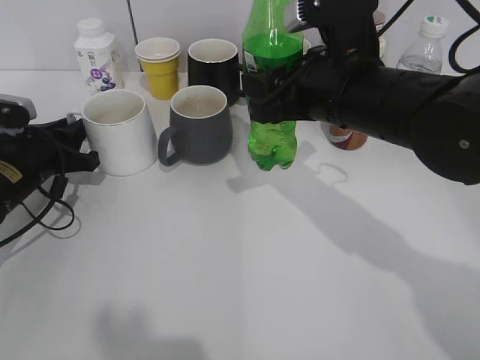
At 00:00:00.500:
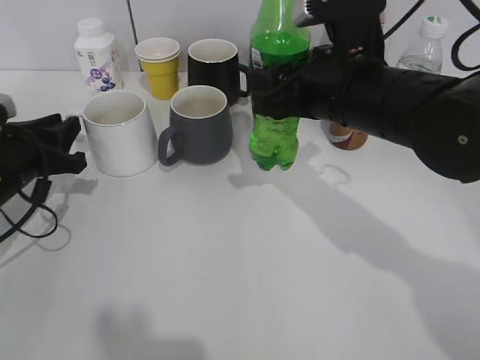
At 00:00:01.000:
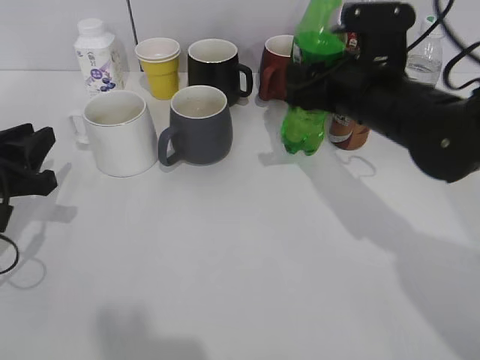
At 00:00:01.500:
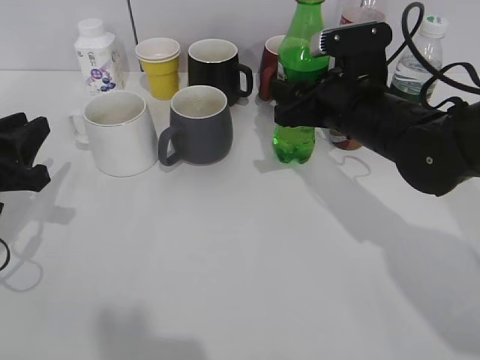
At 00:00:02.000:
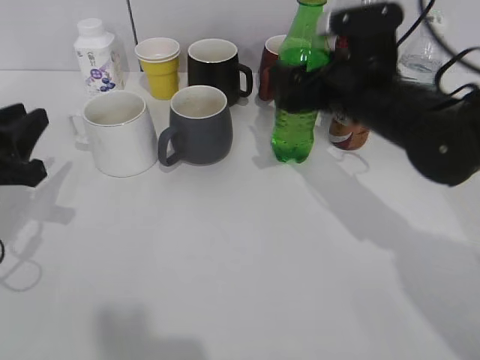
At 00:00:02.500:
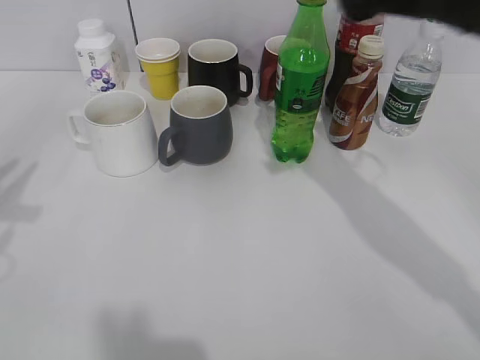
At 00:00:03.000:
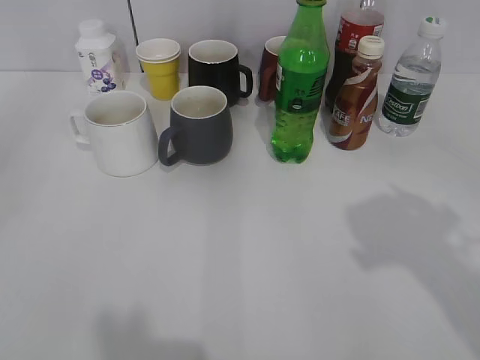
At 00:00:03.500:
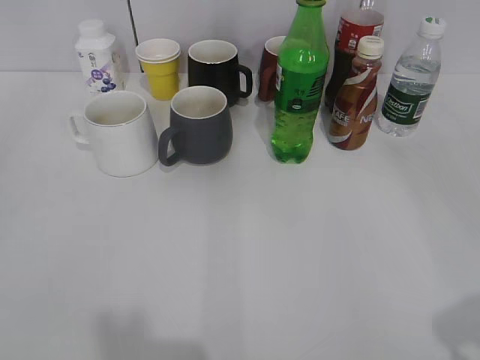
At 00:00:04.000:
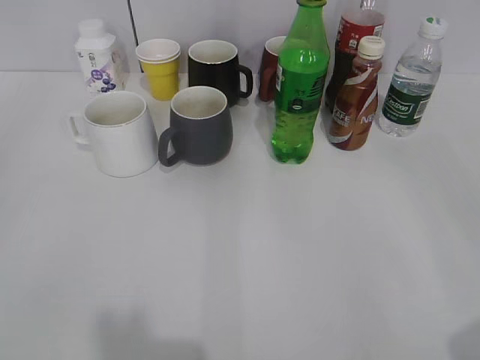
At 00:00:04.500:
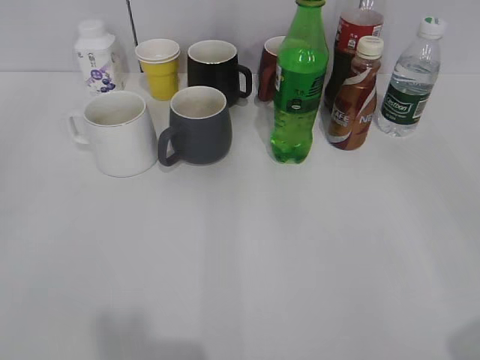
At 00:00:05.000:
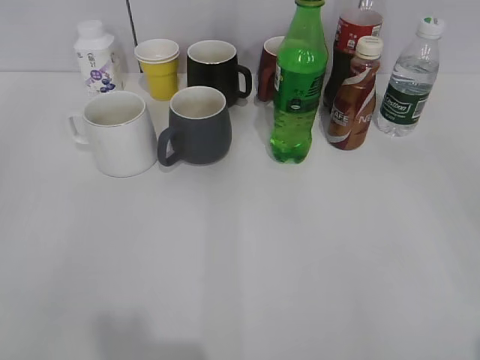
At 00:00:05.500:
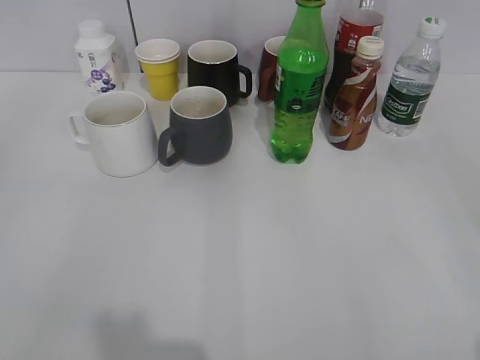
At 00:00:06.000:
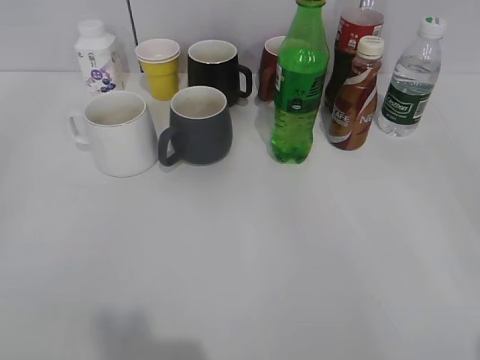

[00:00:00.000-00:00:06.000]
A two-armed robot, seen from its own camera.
Step, 00:00:00.500 to 00:00:02.000: Place the sprite bottle on the table with right gripper.
00:00:00.000 to 00:00:02.000: The right gripper moves roughly 5 cm, and opens its fingers. Meanwhile the left gripper shifts about 10 cm backward and upward.
00:00:02.000 to 00:00:04.000: The left gripper is displaced backward and upward by some 25 cm, and opens; the right gripper moves backward and to the right, approximately 35 cm.
